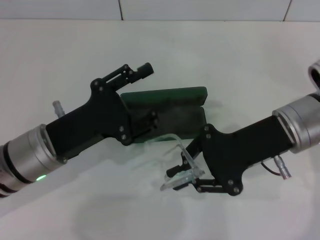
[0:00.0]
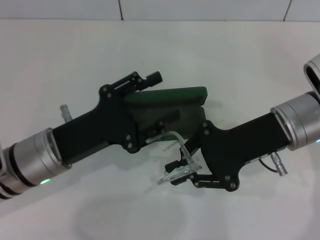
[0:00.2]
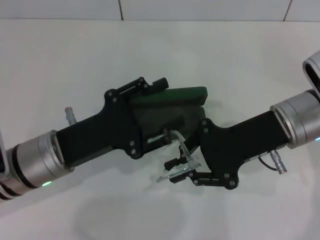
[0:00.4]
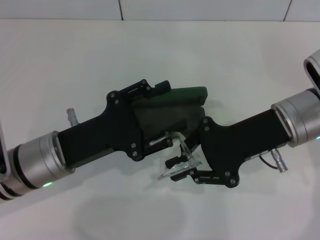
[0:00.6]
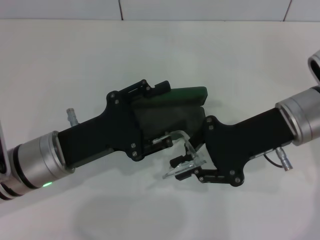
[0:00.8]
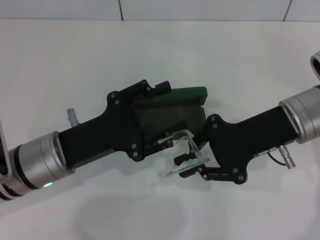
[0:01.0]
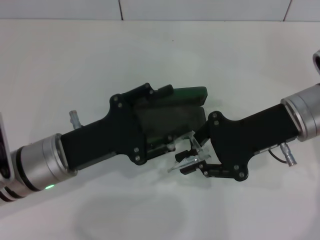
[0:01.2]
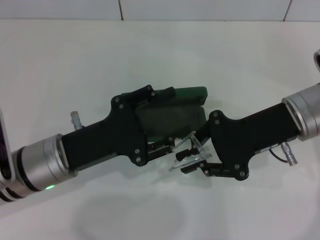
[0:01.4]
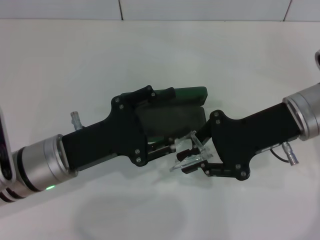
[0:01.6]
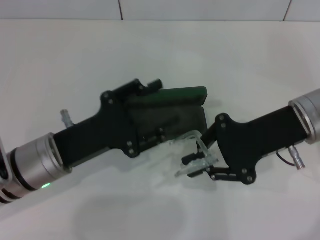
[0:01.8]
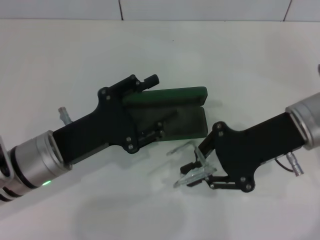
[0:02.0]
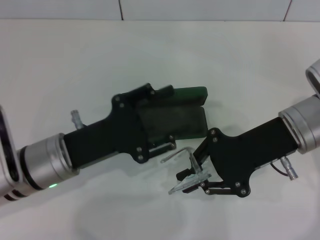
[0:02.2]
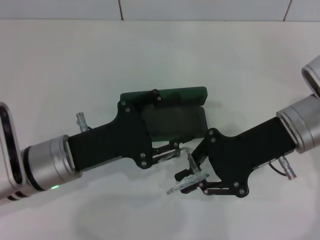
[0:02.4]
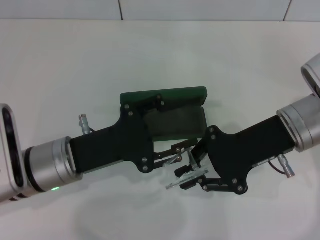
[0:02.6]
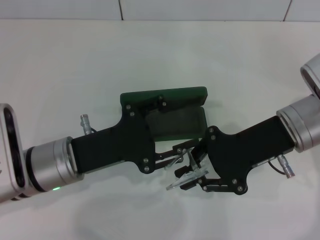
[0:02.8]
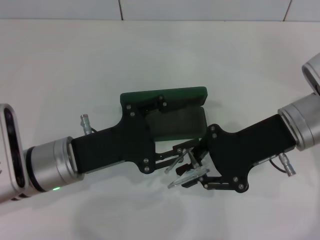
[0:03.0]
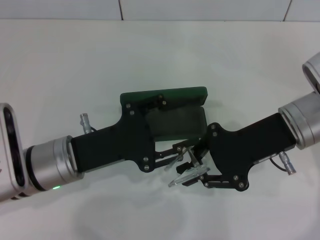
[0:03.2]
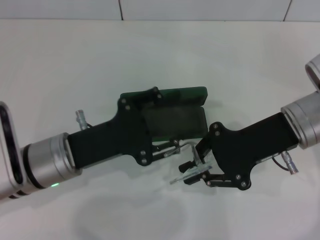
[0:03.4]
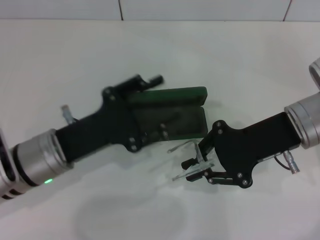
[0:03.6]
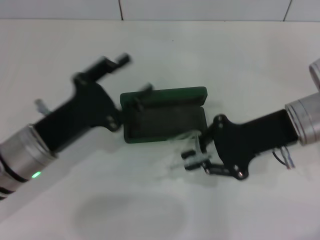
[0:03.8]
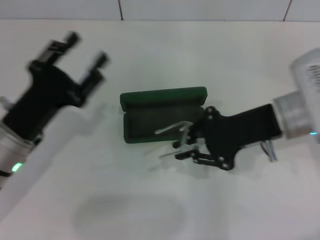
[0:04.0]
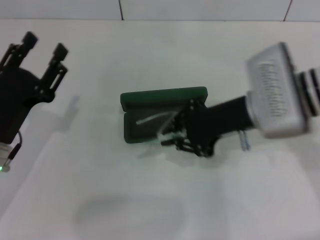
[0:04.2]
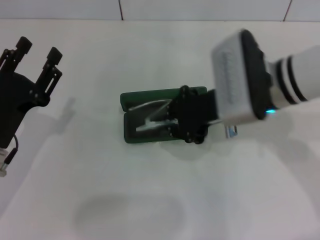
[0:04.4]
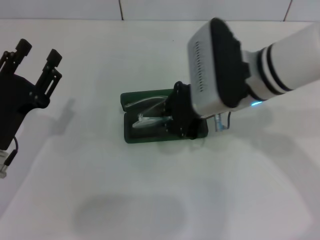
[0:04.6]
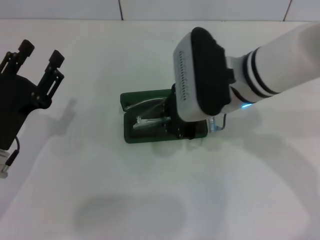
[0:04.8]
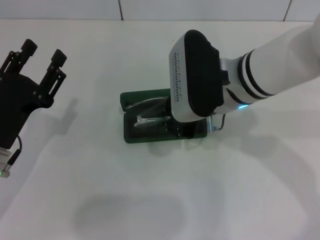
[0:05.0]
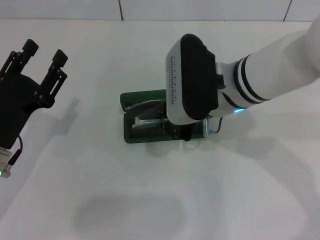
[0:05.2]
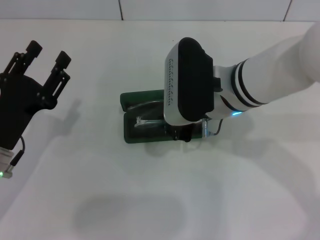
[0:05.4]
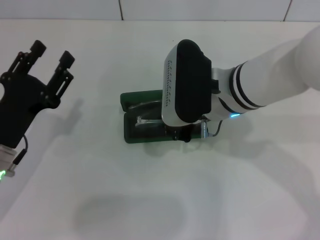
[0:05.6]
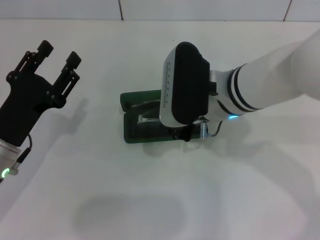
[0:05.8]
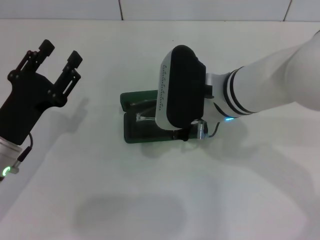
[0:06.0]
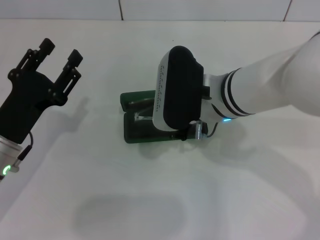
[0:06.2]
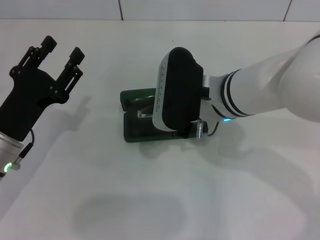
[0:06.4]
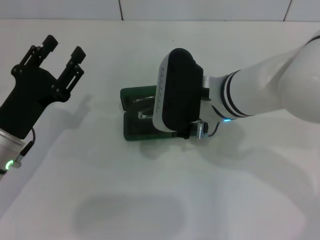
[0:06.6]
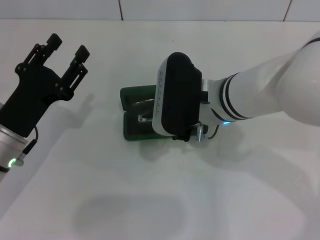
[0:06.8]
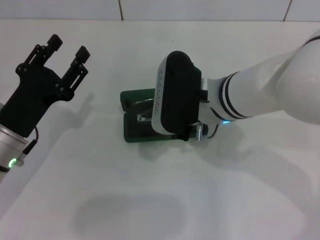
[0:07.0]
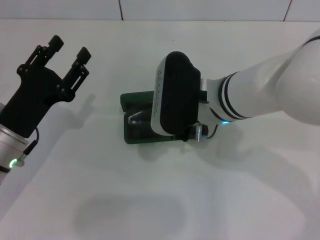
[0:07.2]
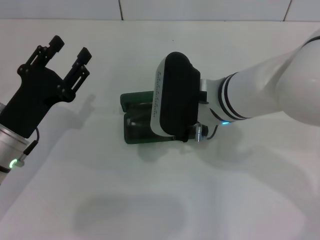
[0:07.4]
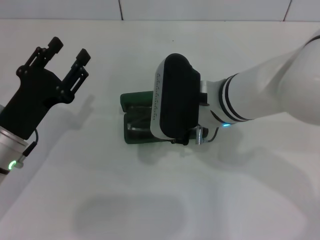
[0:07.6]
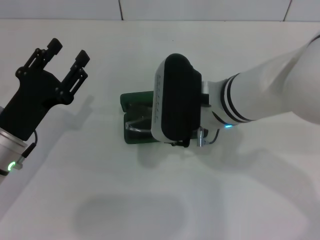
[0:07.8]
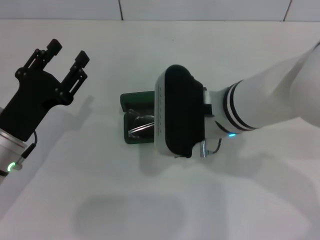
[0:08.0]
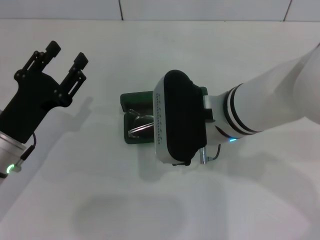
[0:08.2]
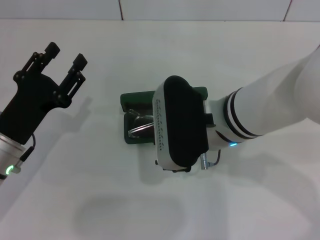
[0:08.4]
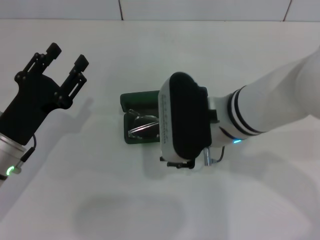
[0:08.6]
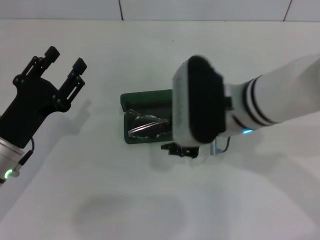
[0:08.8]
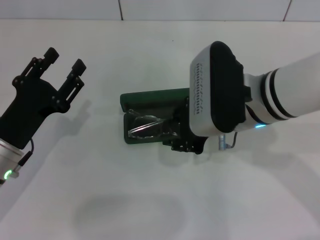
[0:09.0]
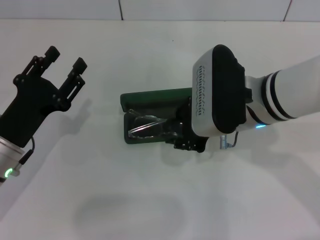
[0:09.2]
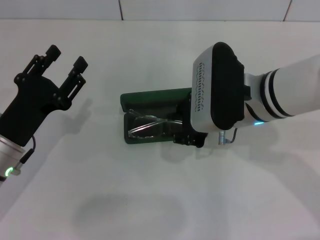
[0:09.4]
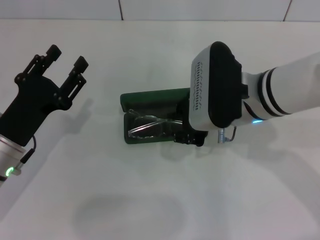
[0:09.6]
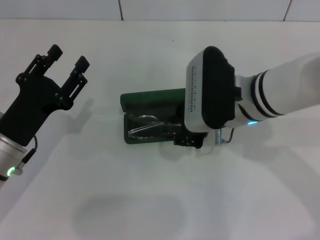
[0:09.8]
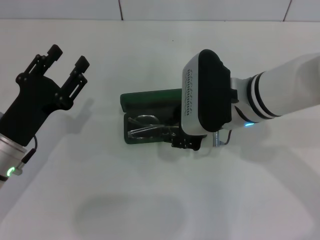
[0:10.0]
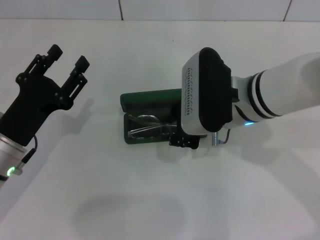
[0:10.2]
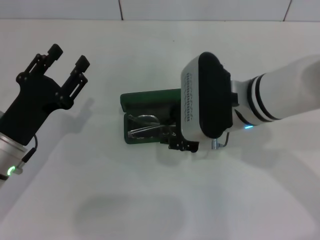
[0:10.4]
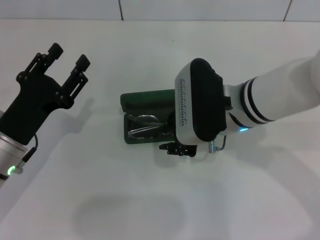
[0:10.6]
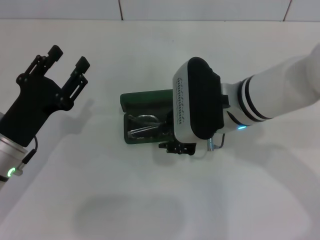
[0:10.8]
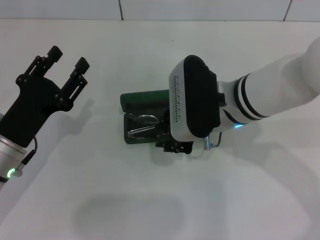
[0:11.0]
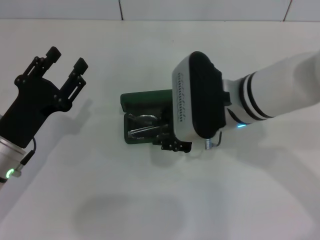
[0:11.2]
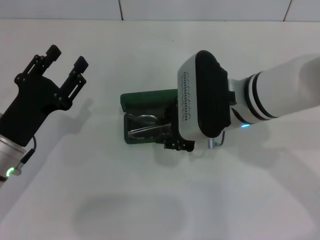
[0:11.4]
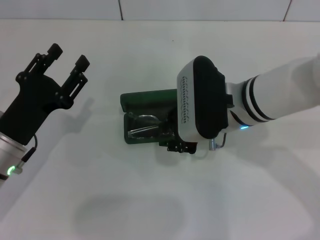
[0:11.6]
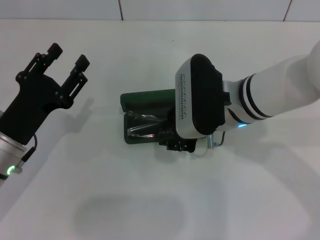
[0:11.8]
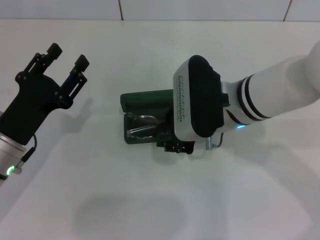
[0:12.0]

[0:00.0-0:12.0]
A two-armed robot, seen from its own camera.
Step, 0:00.0 to 0:03.0: Fold the frame with your left hand.
Step, 0:03.2 to 0:08.2: Put the glasses into the case with your right hand.
0:00.0 to 0:03.0: There are only small adjustments of the grippers.
0:03.0 to 0:04.4: Both grippers move to the left, about 5 cm.
0:04.4 to 0:06.0: The right gripper is displaced to the left by some 5 cm.
0:06.0 to 0:07.6: Both grippers stay about where they are.
0:07.6 to 0:12.0: There are only small adjustments of the grippers.

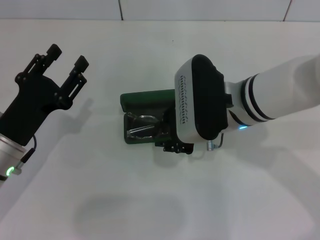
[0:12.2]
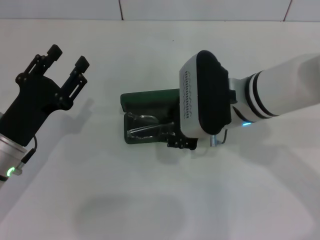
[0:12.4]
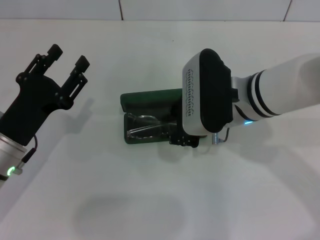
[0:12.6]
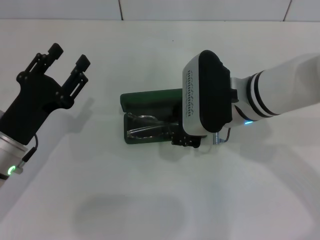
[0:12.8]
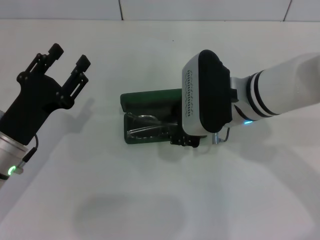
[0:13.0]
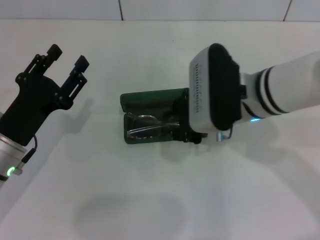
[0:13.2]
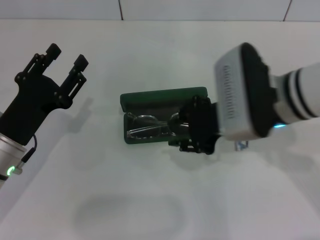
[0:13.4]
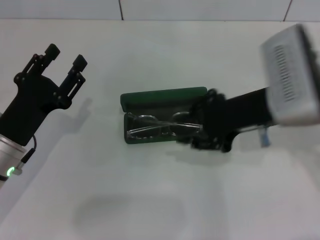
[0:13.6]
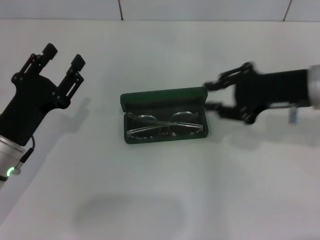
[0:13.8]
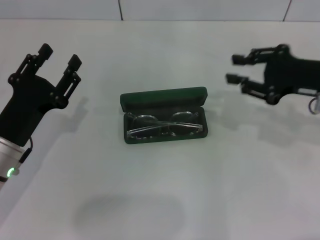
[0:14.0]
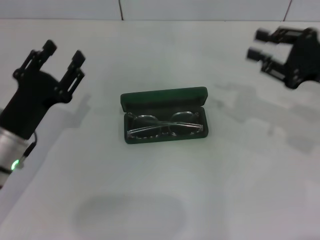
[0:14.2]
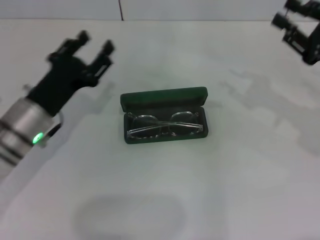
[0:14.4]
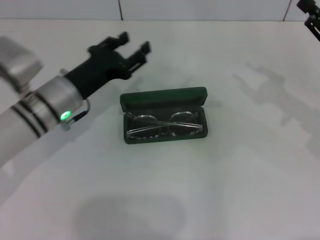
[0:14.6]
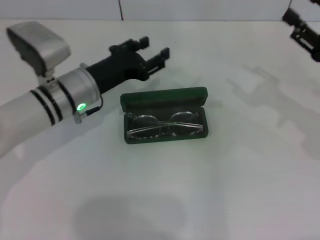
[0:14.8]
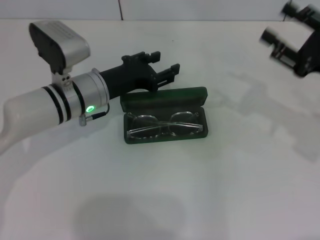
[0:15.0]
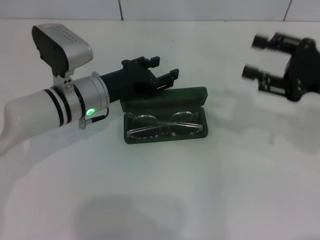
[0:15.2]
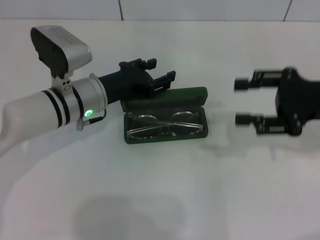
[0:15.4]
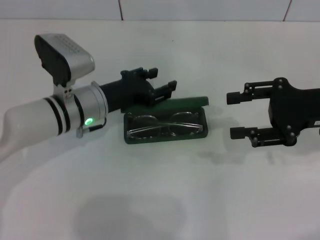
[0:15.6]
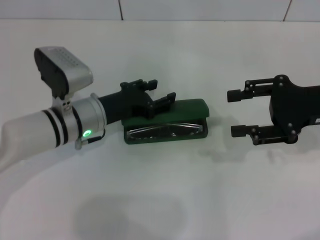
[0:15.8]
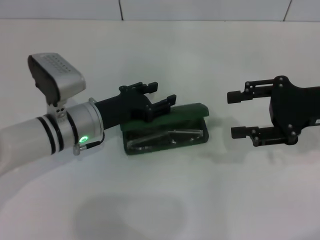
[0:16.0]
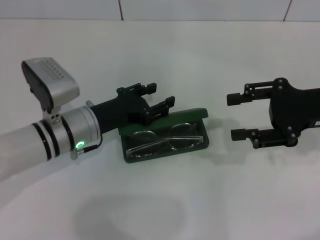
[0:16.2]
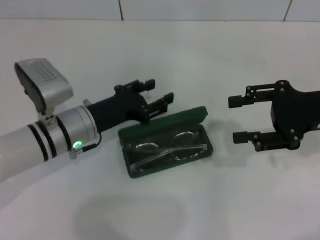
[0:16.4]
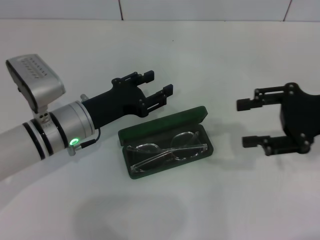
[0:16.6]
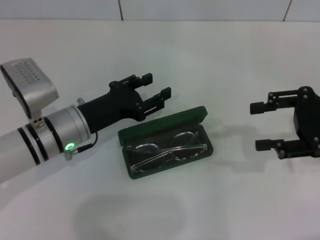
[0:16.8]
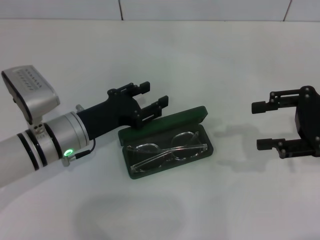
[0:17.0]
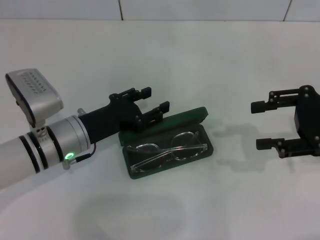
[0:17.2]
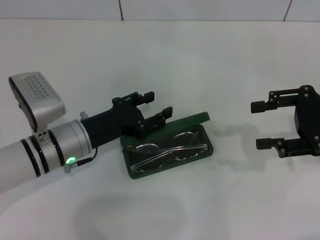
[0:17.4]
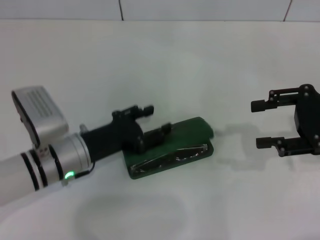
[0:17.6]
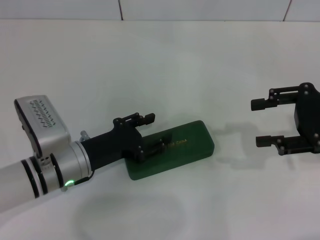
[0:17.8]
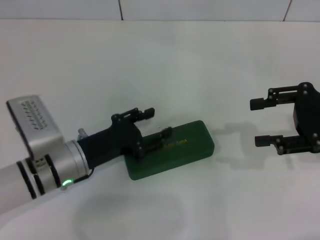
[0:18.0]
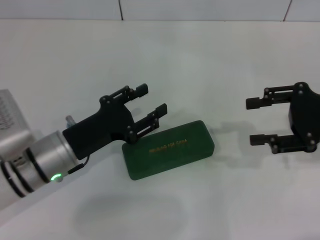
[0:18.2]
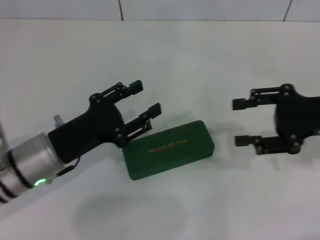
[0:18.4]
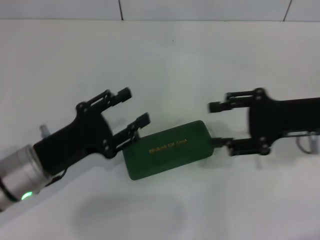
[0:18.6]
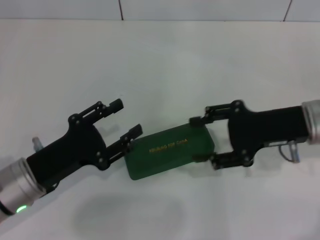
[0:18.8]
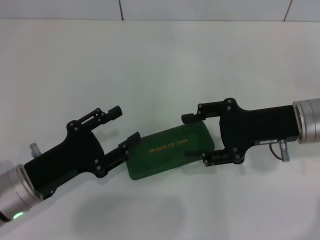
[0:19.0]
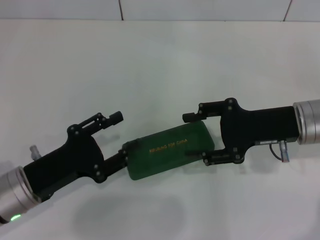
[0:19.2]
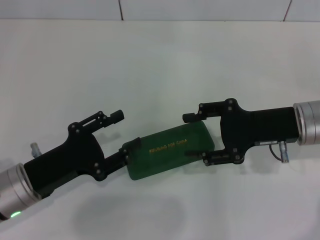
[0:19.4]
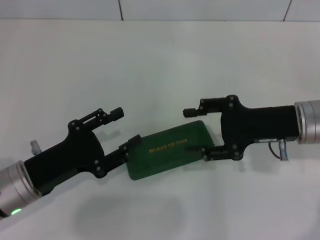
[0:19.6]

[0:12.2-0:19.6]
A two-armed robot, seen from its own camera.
Step, 0:12.2 to 0:17.8: Close the glasses case with your left hand.
0:12.2 to 0:13.6: The right gripper shifts some 5 cm to the right.
0:13.6 to 0:15.2: The left gripper travels forward and to the right by some 15 cm. Meanwhile the right gripper moves to the right, roughly 15 cm.
0:15.2 to 0:16.6: The left gripper ends up some 5 cm from where it was.
0:16.6 to 0:18.2: The left gripper moves backward, about 5 cm.
0:18.2 to 0:19.6: The right gripper goes approximately 10 cm to the left. Meanwhile the left gripper changes place by about 5 cm.

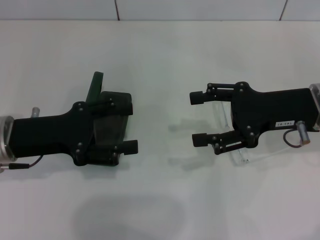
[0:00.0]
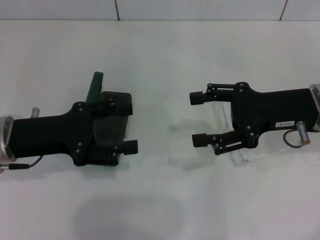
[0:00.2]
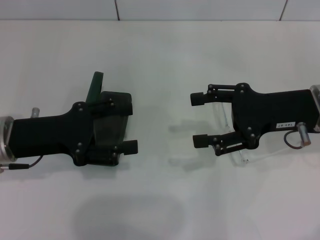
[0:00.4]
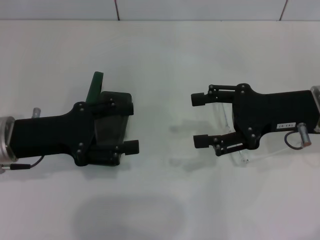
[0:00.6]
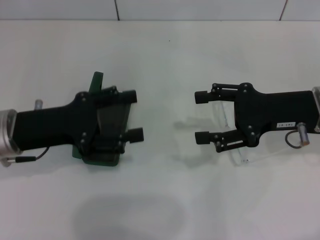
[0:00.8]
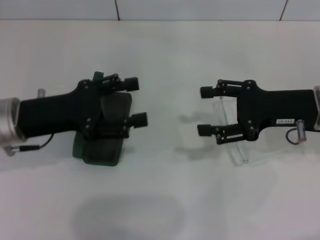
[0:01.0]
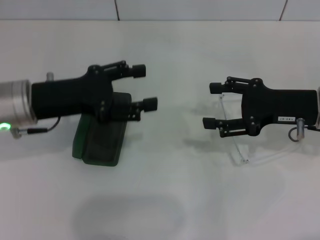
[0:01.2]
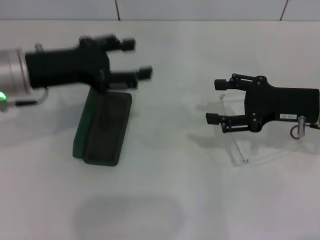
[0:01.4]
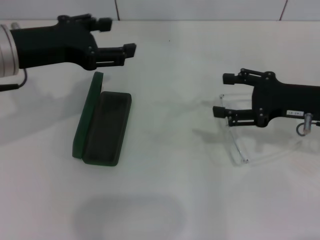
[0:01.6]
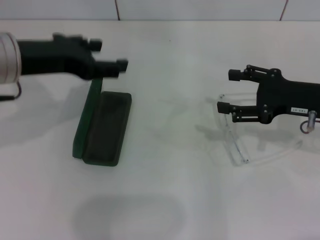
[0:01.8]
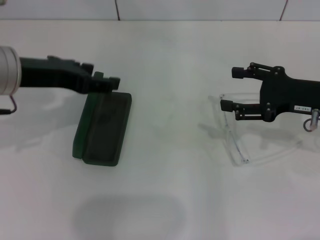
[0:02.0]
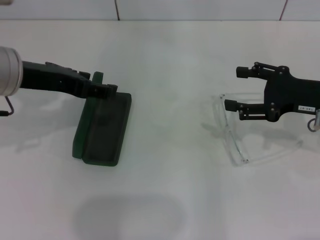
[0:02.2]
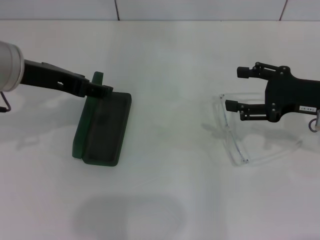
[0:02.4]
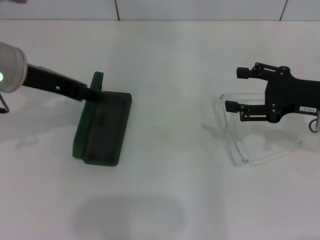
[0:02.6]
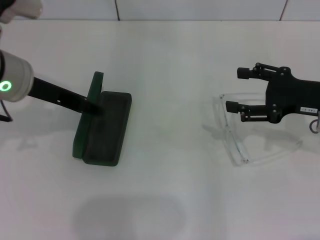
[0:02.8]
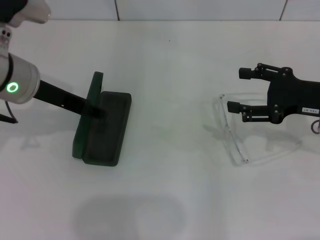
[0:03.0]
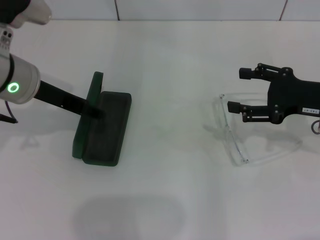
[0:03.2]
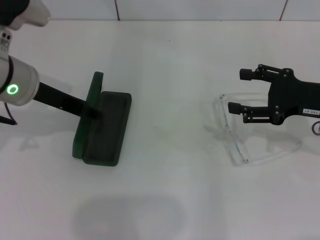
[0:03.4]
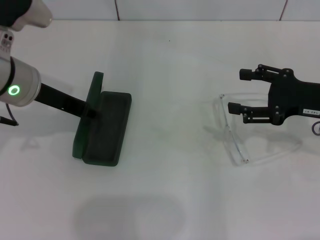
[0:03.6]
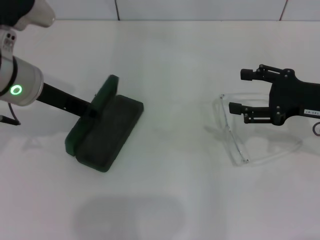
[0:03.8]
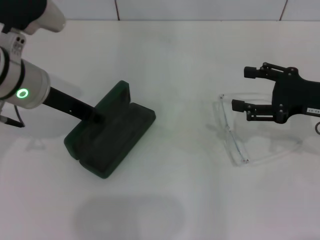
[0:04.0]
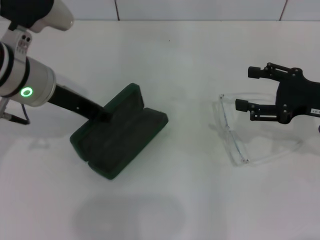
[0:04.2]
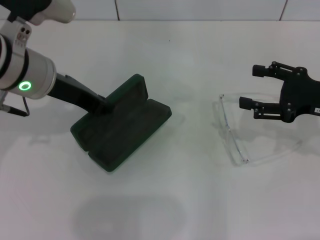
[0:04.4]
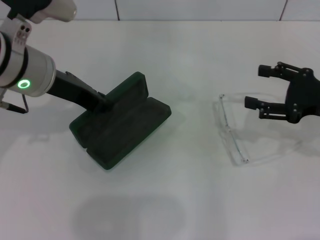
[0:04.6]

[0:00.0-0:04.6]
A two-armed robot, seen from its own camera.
Step, 0:00.0 to 0:03.8: Grab the glasses case with your left hand.
0:00.0 to 0:01.6: The left gripper goes some 10 cm upward.
0:03.0 to 0:04.6: The left gripper closes.
